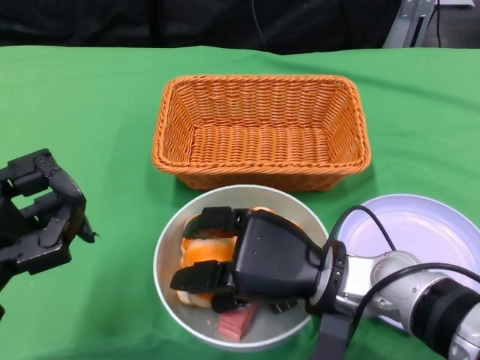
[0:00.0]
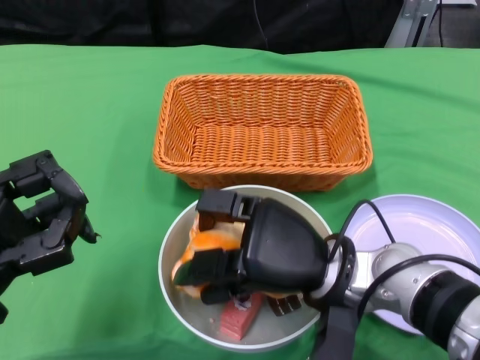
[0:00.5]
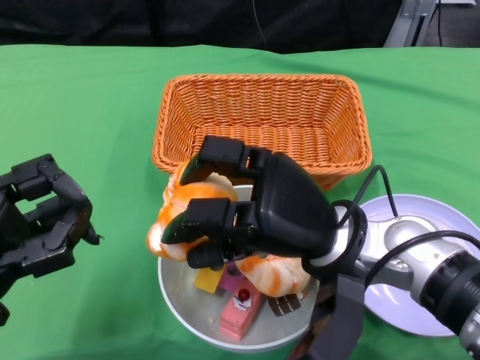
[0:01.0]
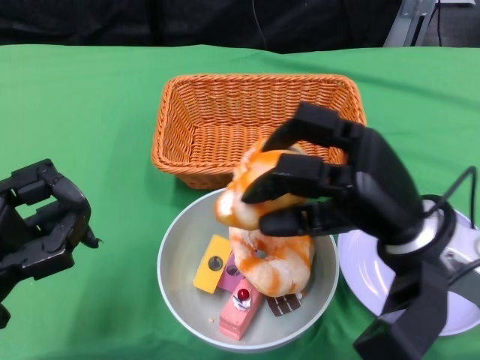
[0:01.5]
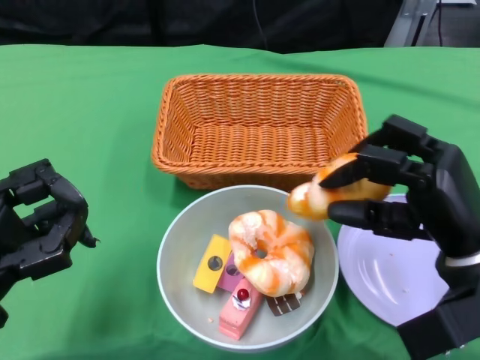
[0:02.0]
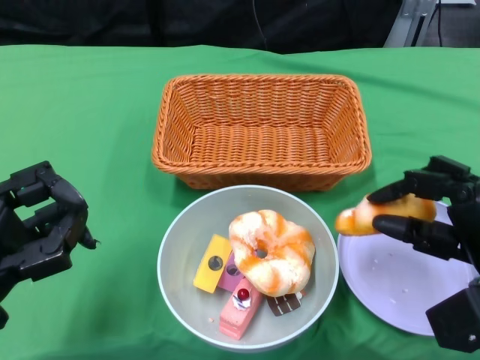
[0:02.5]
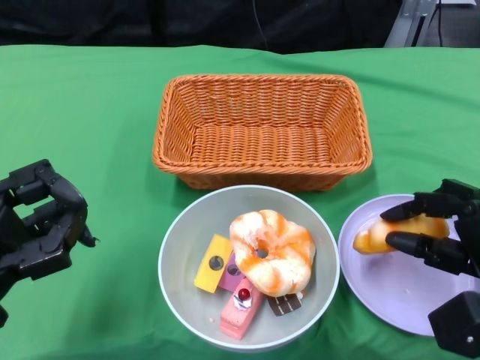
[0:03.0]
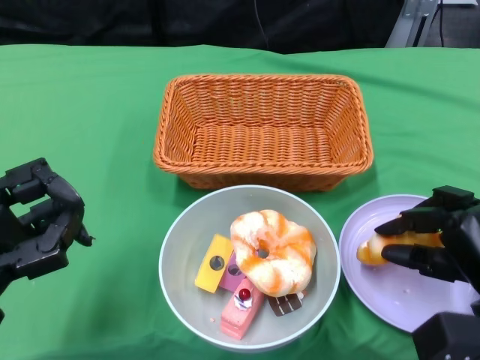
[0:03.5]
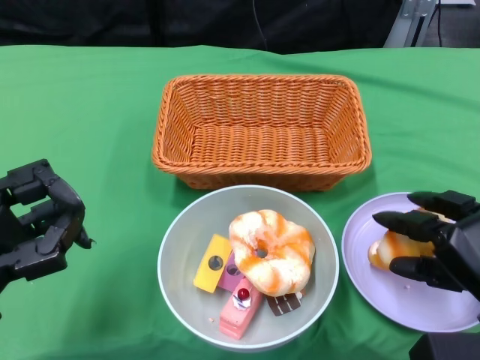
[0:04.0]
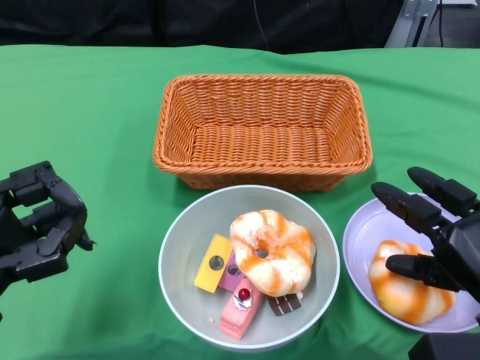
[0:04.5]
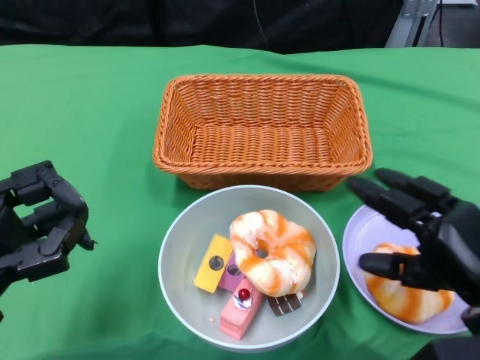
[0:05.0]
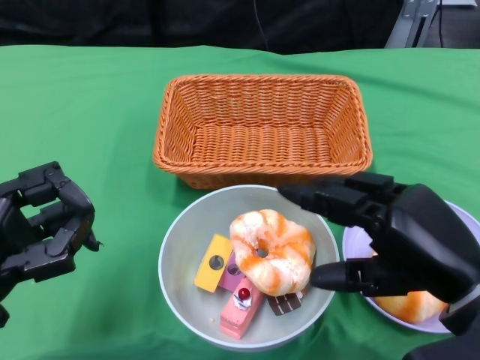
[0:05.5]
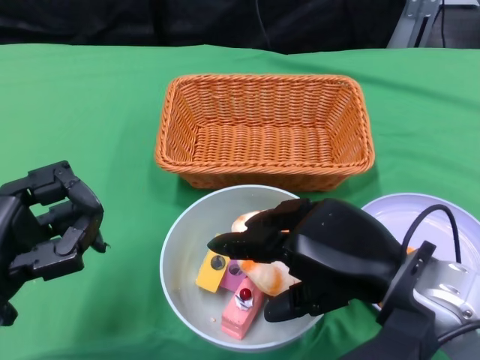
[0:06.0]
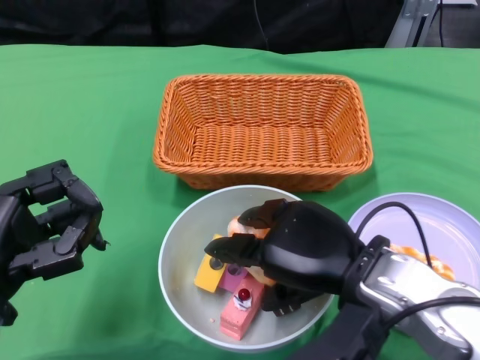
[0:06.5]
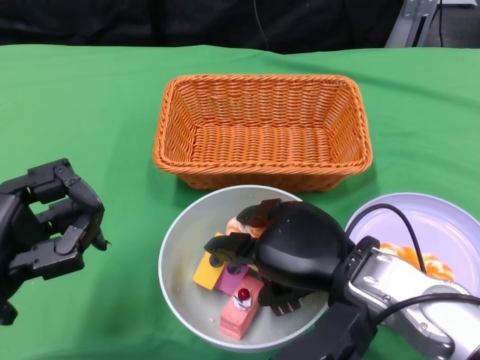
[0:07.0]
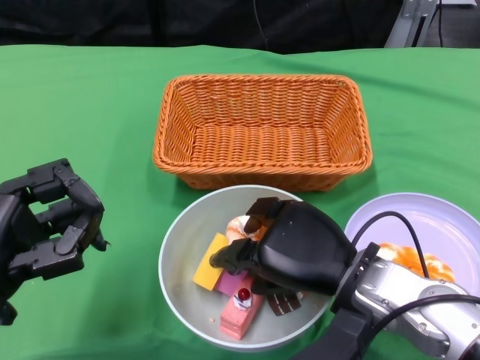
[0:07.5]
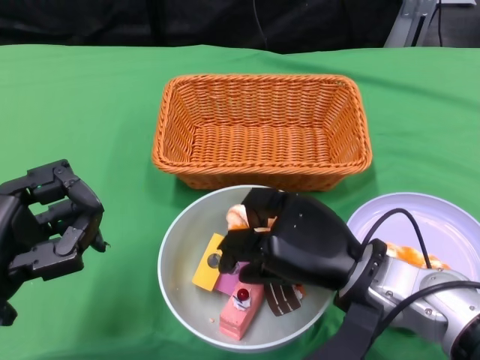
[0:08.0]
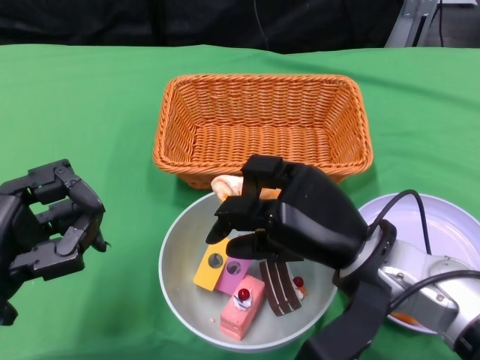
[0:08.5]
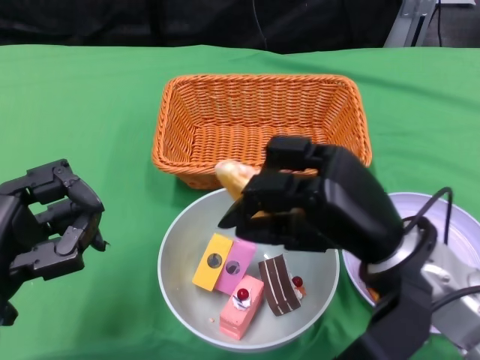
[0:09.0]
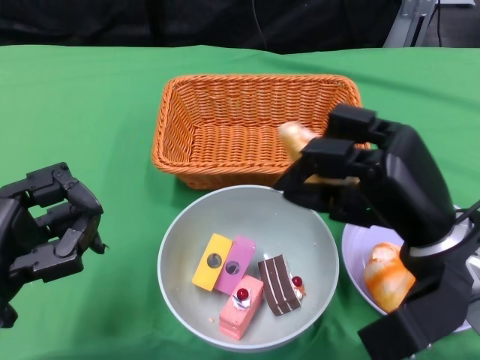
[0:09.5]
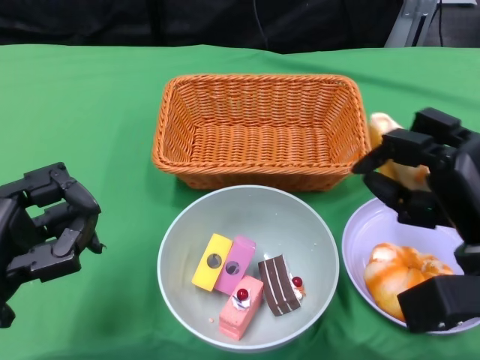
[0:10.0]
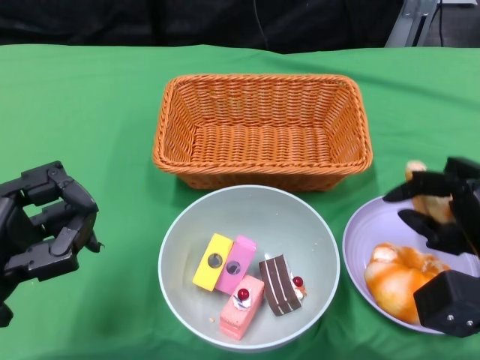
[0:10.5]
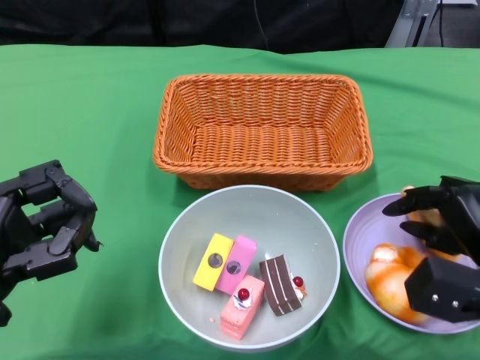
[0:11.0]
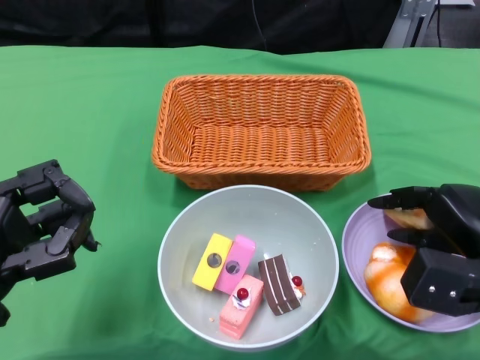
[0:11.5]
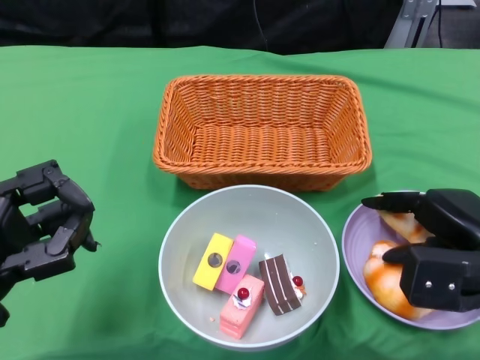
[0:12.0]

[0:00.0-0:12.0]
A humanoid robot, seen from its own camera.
0:00.0 to 0:02.0: The right hand travels to the right by some 10 cm.
0:02.0 to 0:04.0: The right hand moves downward and to the right, roughly 10 cm.
0:04.0 to 0:06.0: The right hand shifts some 15 cm upward and to the left.
0:06.0 to 0:08.0: The right hand travels downward by about 5 cm.
0:08.0 to 0:10.0: The right hand travels to the right by approximately 10 cm.

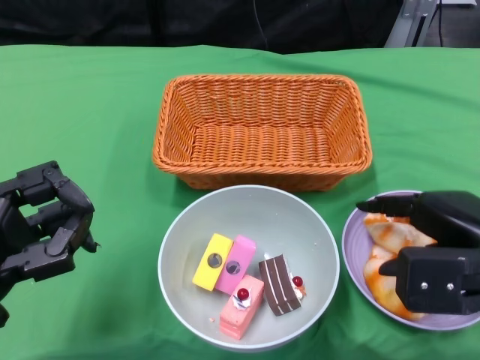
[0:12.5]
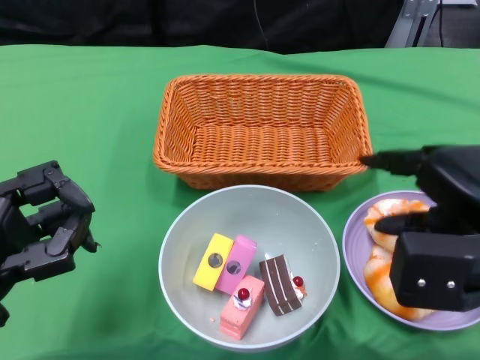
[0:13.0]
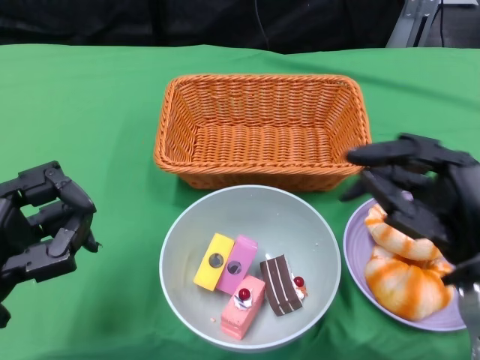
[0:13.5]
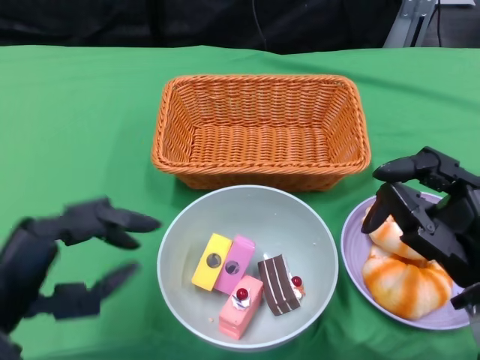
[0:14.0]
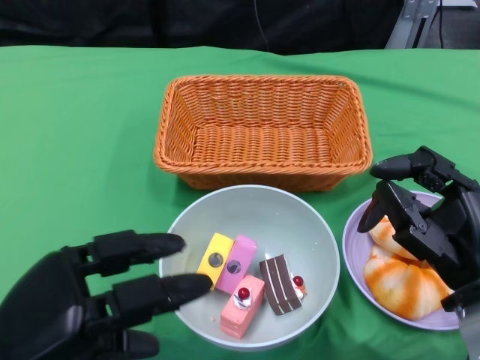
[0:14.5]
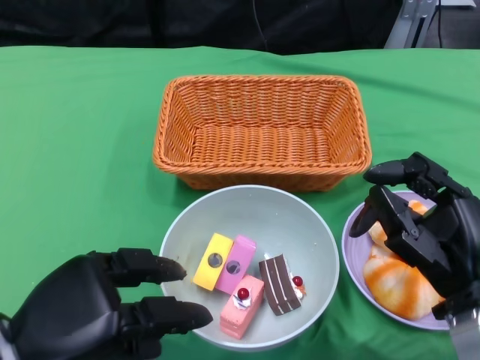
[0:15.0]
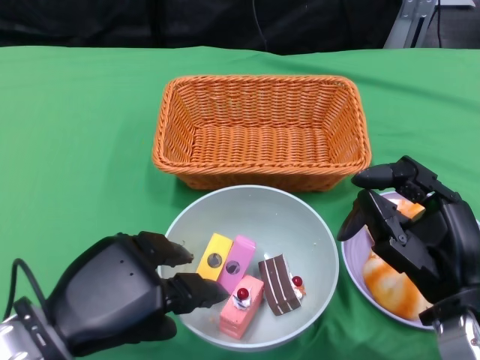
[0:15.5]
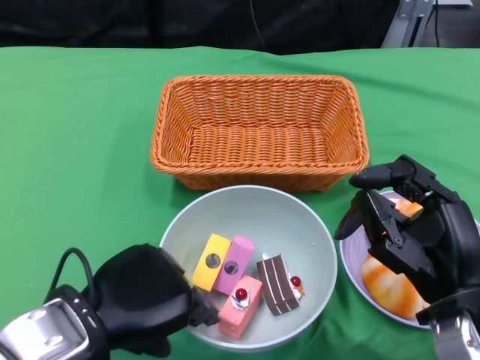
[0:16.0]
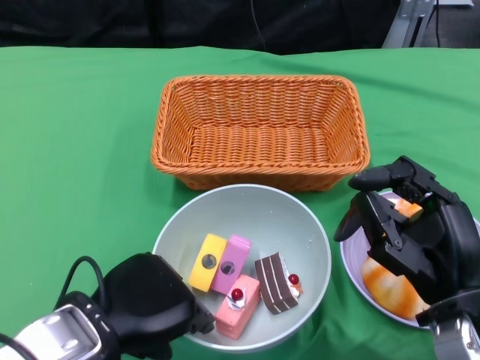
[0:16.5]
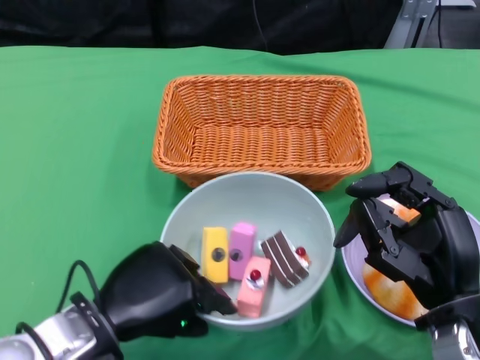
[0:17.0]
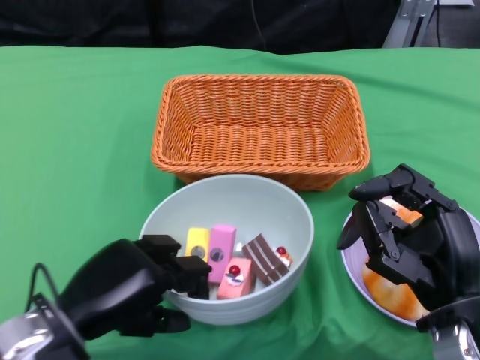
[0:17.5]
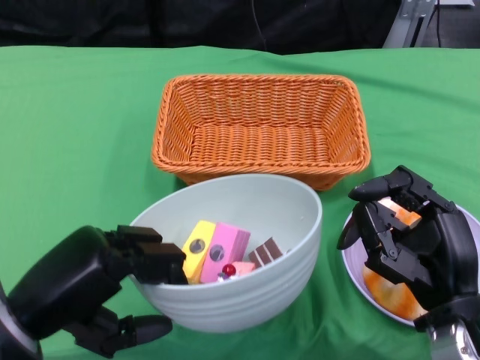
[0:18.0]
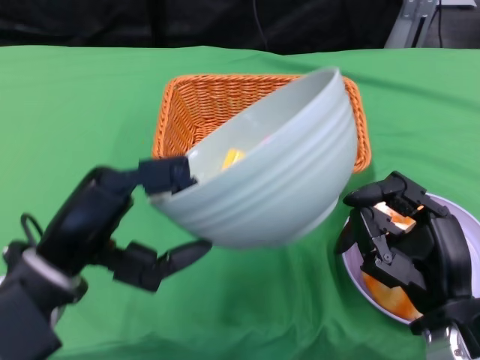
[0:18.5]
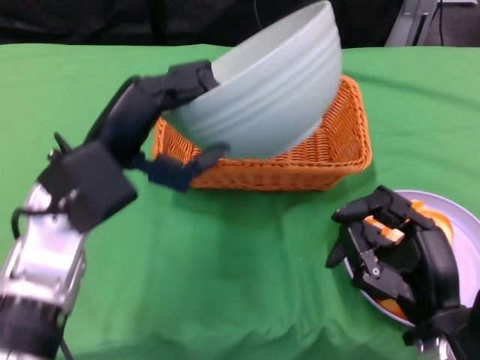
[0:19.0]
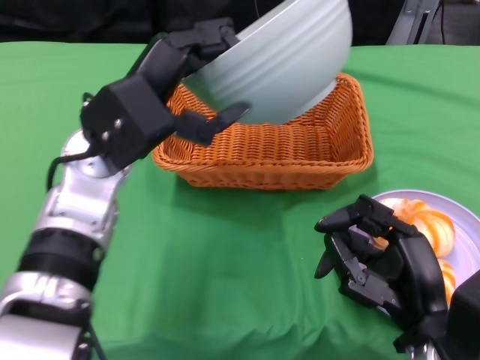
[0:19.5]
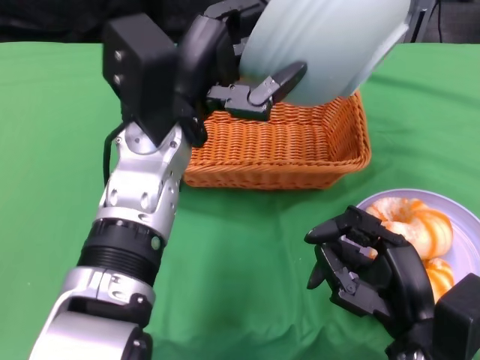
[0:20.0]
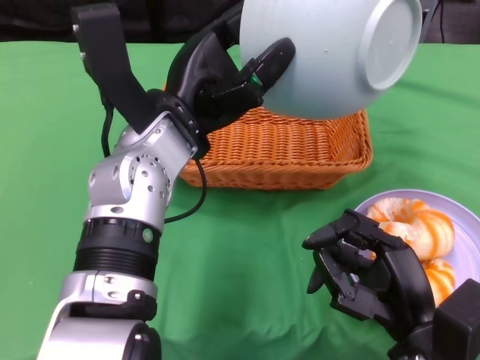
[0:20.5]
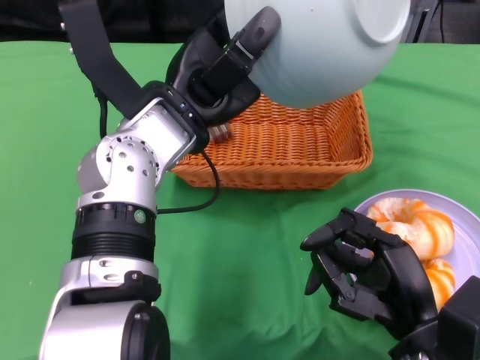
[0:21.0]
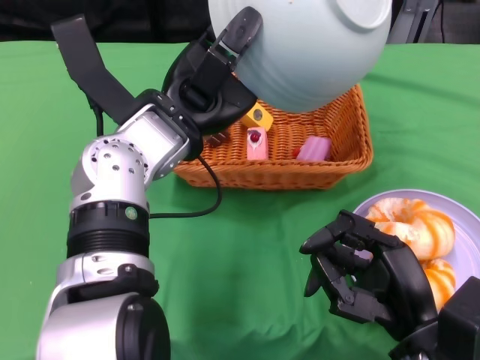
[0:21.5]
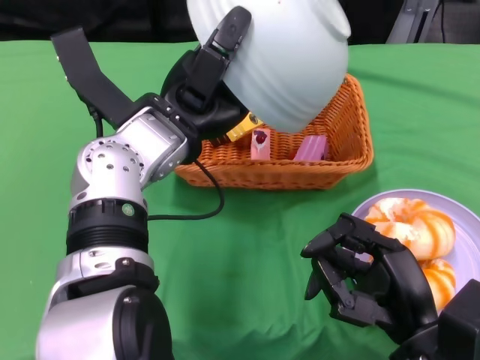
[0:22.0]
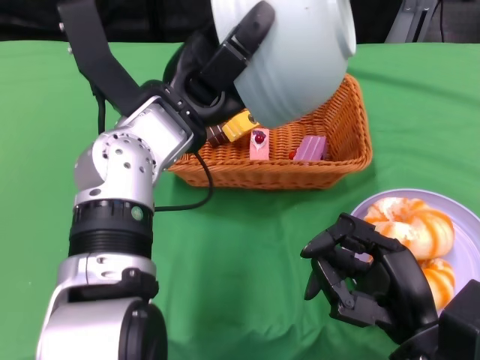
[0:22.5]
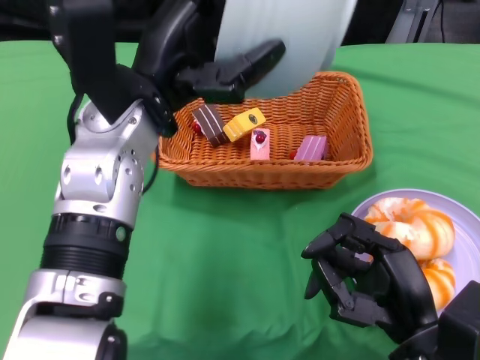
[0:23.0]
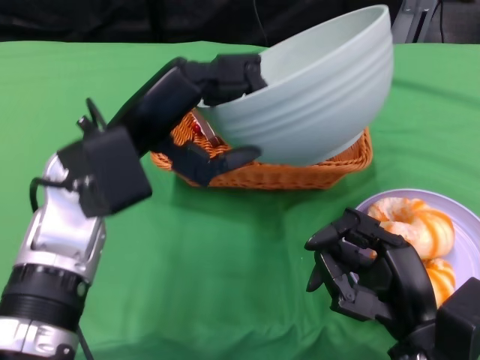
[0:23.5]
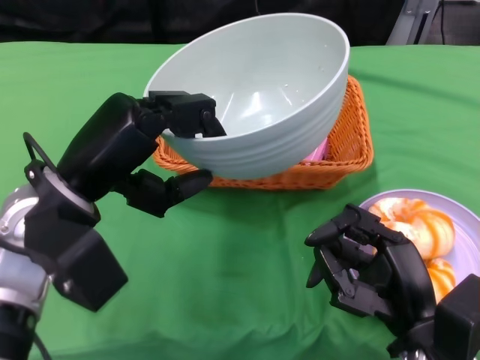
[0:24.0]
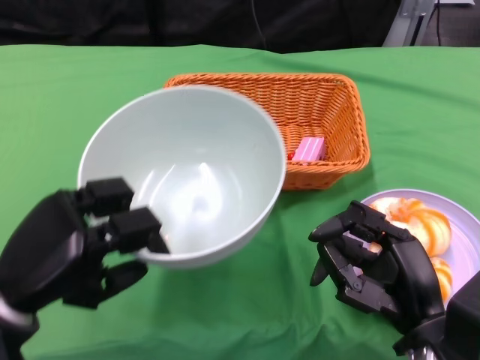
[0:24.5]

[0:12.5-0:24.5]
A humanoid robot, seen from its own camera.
Step, 0:13.5 to 0:17.5: Grasp the bowl with the left gripper.
Step, 0:18.0 to 0:22.5: Pour the cake into the basket with the left gripper.
0:14.5 to 0:16.5: The left hand moves to the right, roughly 5 cm.
0:18.5 to 0:20.5: The left hand is displaced forward and to the right by about 15 cm.
0:22.5 to 0:24.5: The left hand goes some 20 cm to the left, backward and downward.
